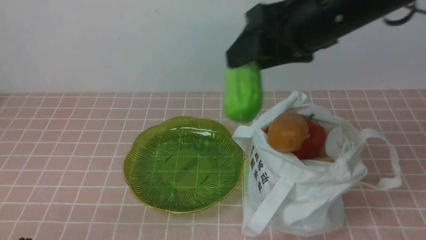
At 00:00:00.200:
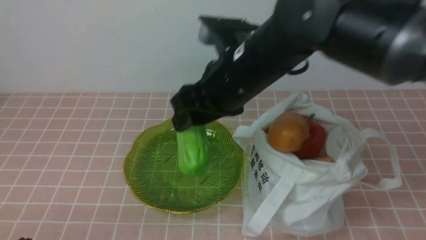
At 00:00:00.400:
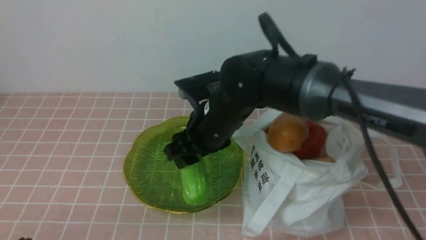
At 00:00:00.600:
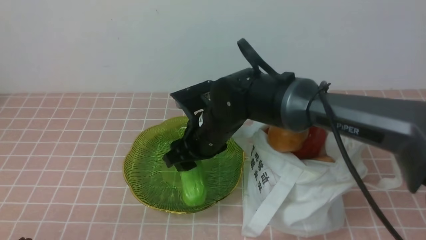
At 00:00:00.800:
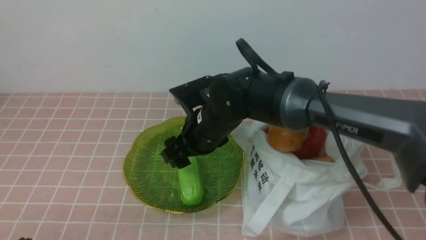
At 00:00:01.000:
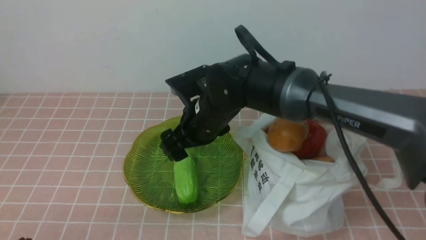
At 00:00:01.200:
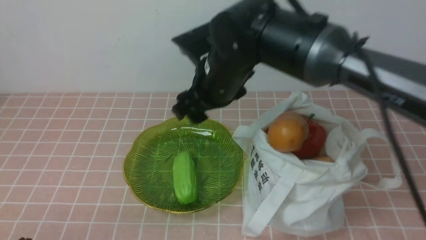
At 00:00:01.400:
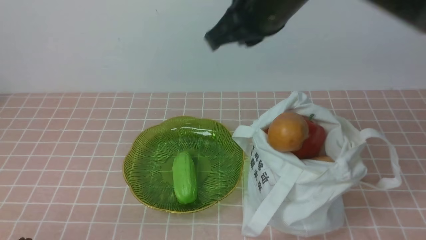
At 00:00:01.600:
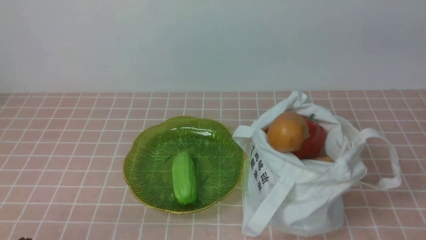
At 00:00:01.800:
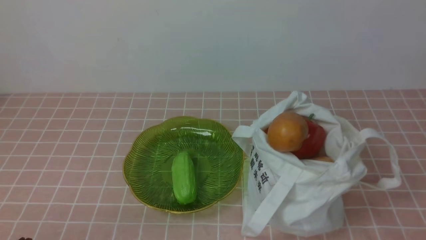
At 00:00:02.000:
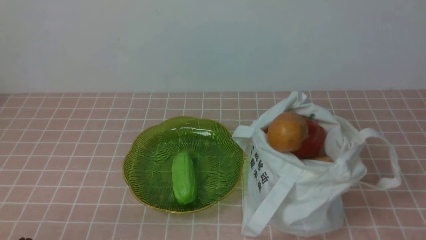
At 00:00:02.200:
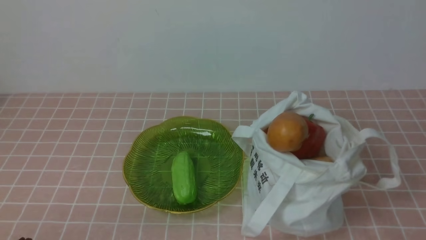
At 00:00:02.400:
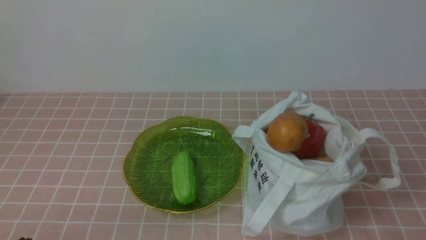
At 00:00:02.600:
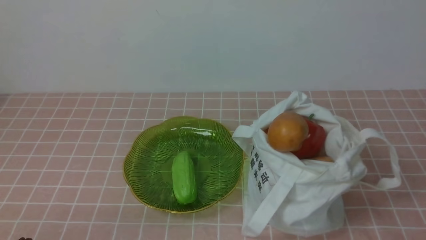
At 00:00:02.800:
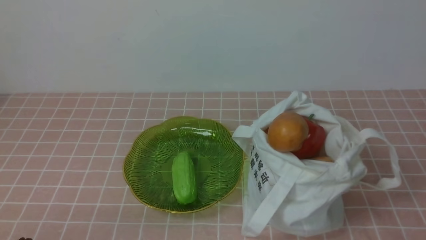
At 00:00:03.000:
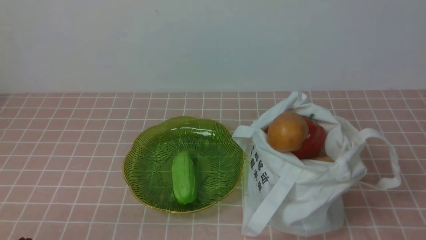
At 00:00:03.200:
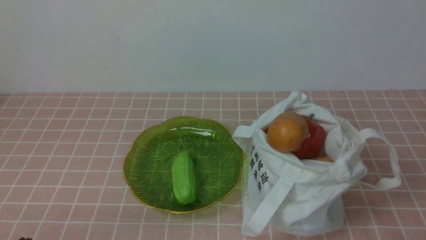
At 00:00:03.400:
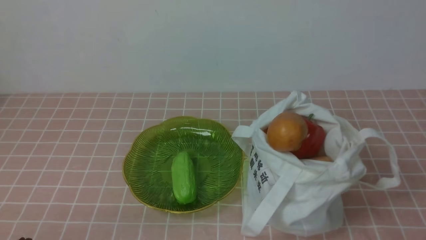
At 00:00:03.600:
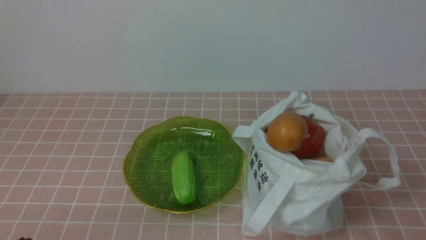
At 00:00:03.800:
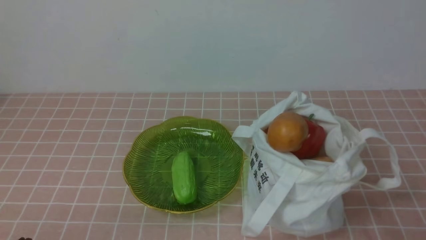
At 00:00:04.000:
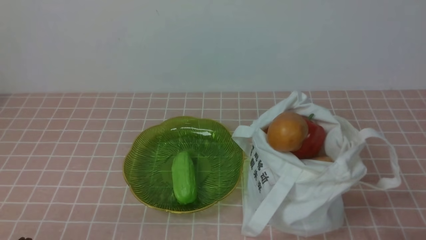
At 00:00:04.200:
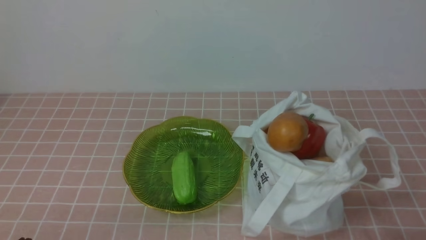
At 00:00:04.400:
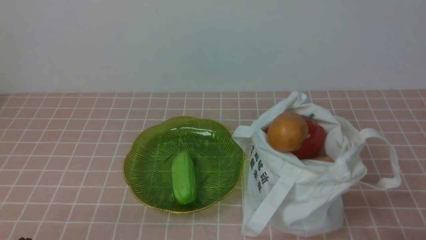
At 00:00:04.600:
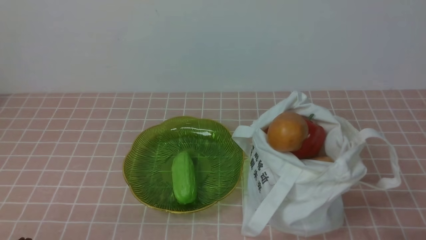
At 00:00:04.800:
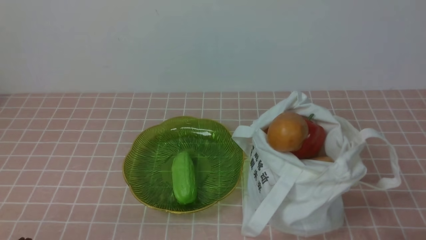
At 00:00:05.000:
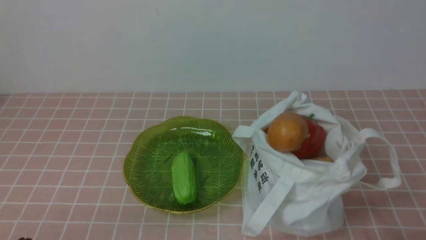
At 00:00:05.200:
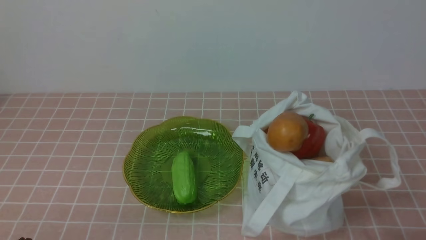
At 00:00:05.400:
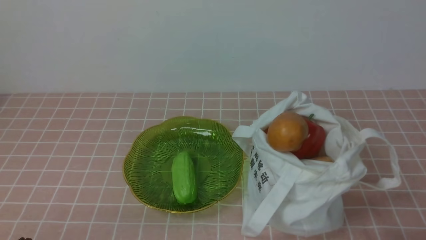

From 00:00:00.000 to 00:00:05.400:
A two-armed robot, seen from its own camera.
Task of the whole recording: take vegetables from bag on pink coffee tablecloth place on plate.
Step, from 00:00:00.000 to 00:00:01.000: Place the bitter melon on the plate with right gripper.
From 00:00:00.000 to 00:00:01.400: The right gripper moves some 15 cm downward and comes back, and closes its fingers.
From 00:00:01.400 to 00:00:02.800: The right gripper moves backward, to the right and downward, about 35 cm.
From 00:00:04.000 to 00:00:05.400: Both grippers stay about where they are.

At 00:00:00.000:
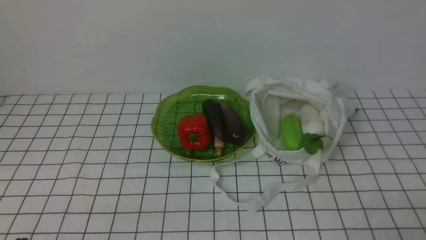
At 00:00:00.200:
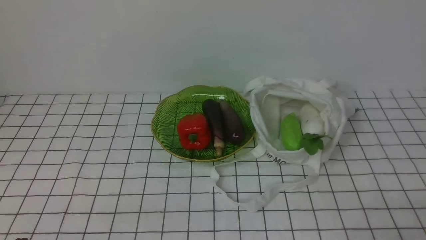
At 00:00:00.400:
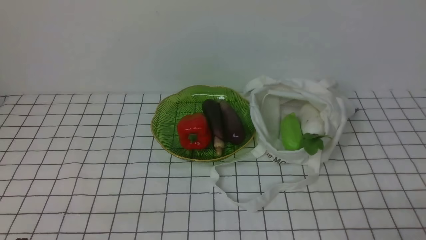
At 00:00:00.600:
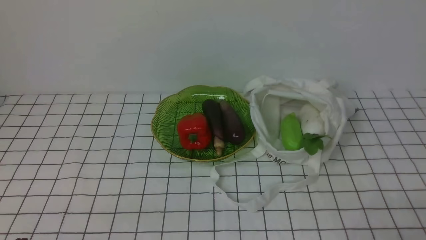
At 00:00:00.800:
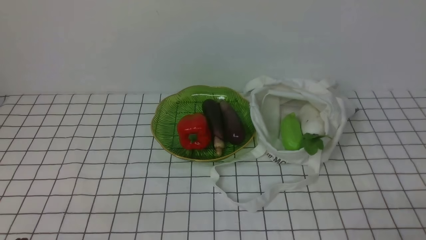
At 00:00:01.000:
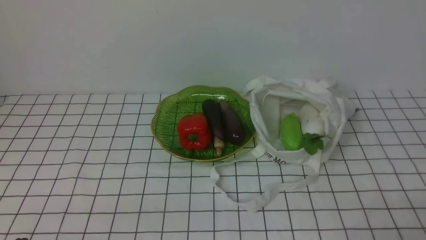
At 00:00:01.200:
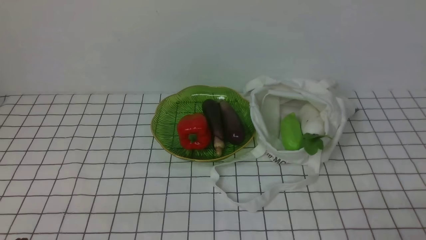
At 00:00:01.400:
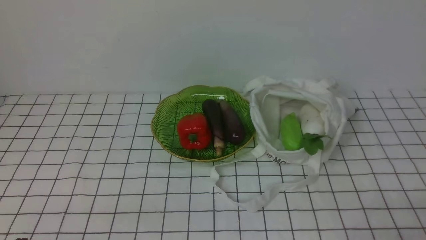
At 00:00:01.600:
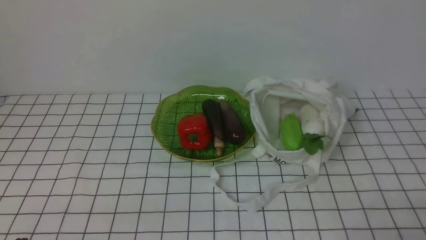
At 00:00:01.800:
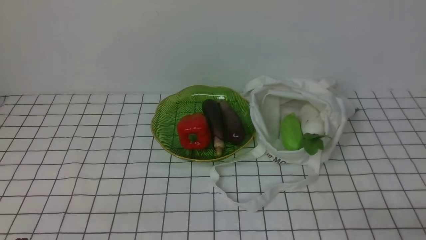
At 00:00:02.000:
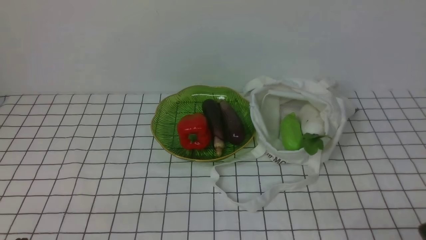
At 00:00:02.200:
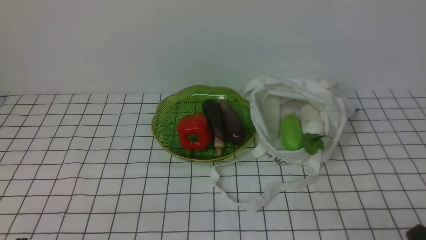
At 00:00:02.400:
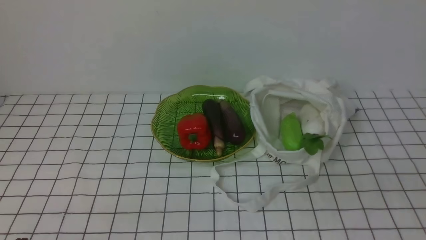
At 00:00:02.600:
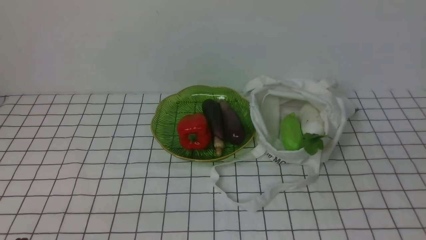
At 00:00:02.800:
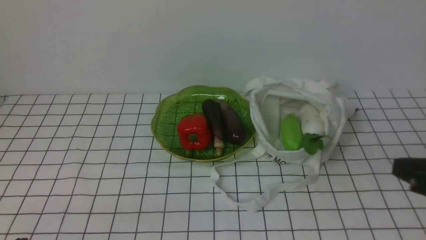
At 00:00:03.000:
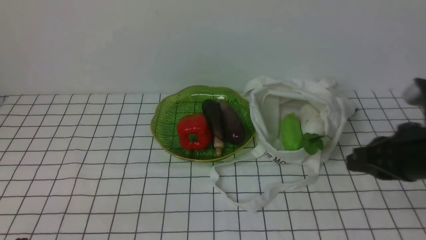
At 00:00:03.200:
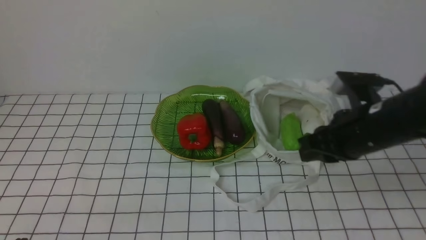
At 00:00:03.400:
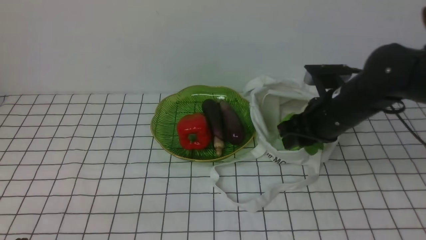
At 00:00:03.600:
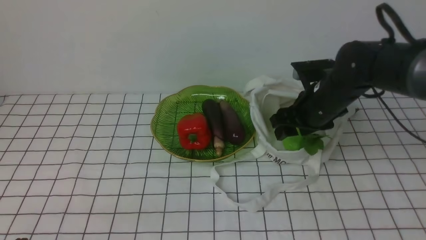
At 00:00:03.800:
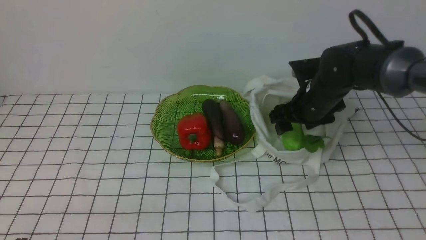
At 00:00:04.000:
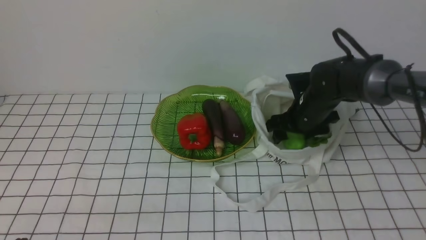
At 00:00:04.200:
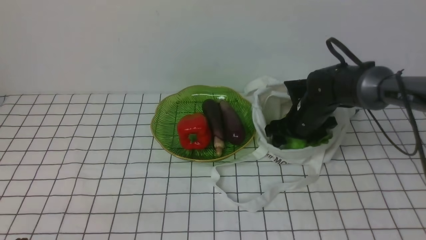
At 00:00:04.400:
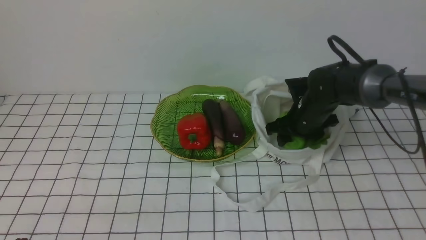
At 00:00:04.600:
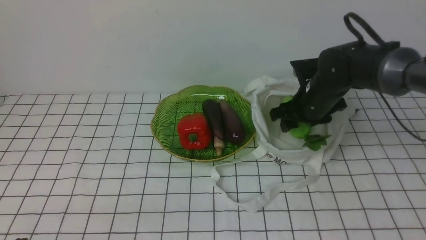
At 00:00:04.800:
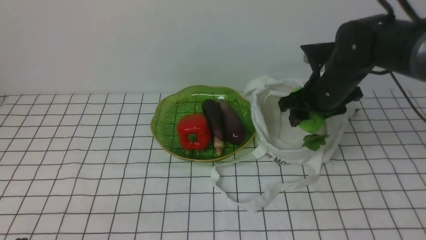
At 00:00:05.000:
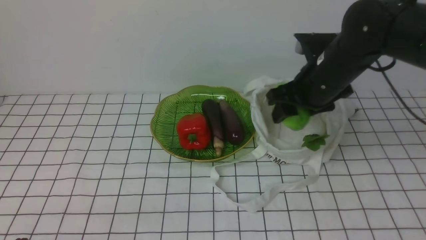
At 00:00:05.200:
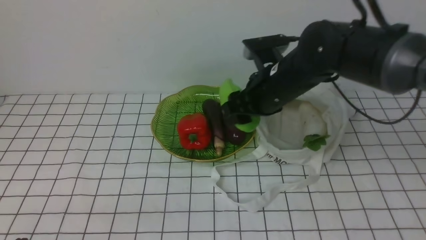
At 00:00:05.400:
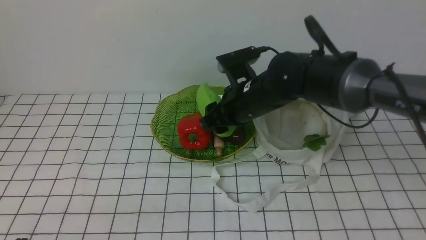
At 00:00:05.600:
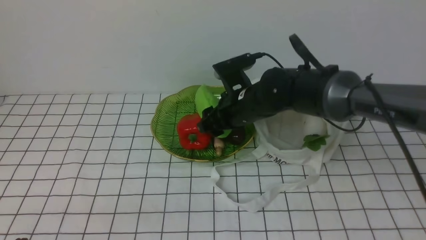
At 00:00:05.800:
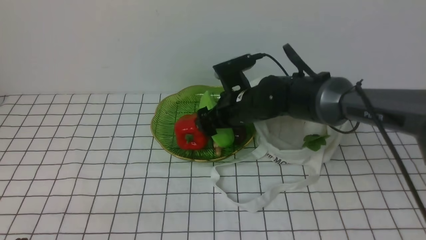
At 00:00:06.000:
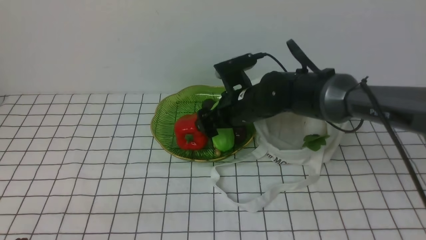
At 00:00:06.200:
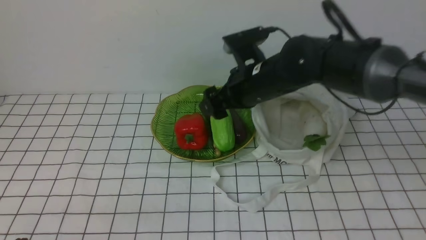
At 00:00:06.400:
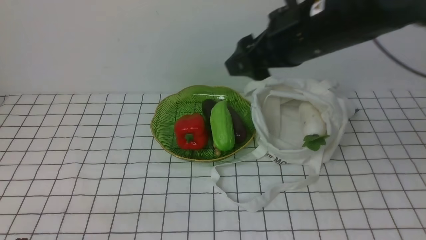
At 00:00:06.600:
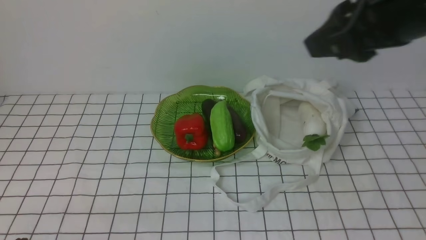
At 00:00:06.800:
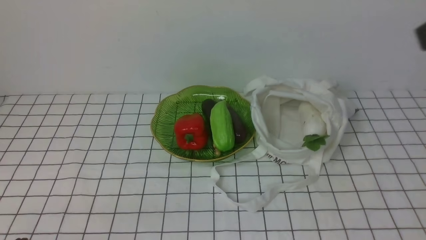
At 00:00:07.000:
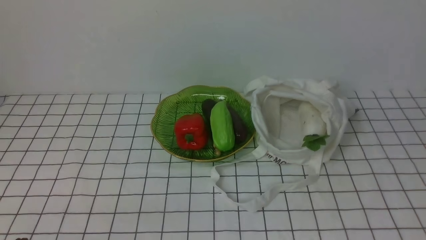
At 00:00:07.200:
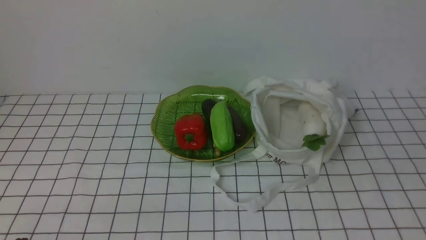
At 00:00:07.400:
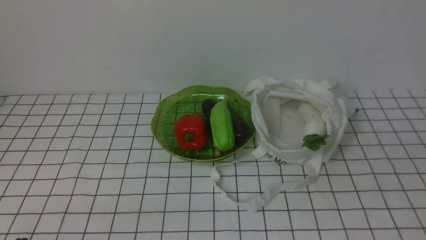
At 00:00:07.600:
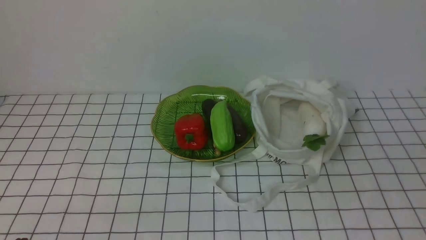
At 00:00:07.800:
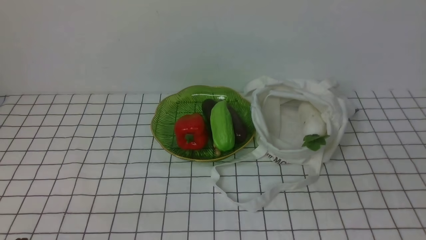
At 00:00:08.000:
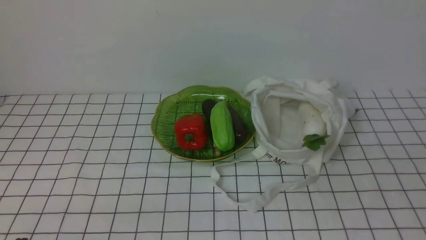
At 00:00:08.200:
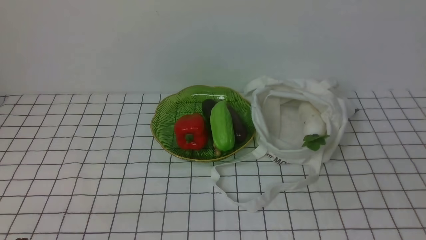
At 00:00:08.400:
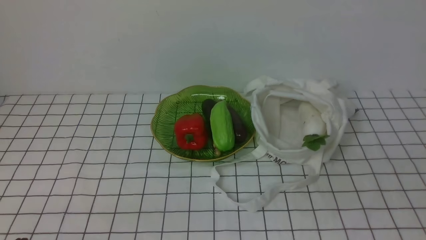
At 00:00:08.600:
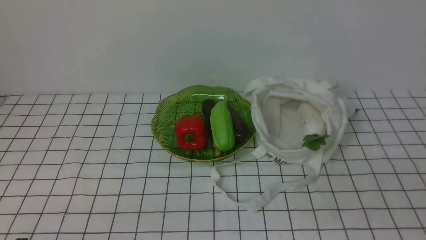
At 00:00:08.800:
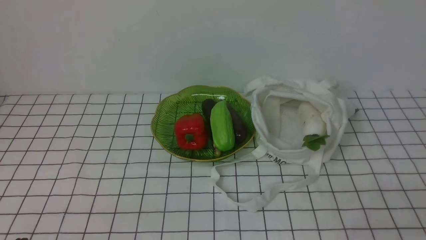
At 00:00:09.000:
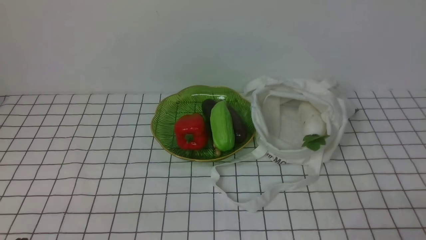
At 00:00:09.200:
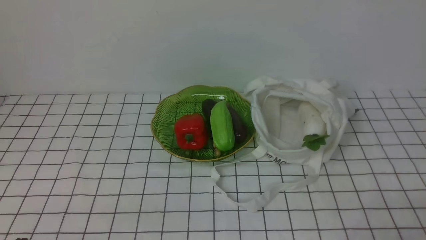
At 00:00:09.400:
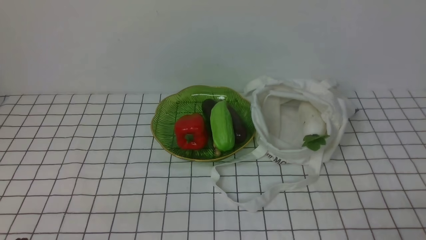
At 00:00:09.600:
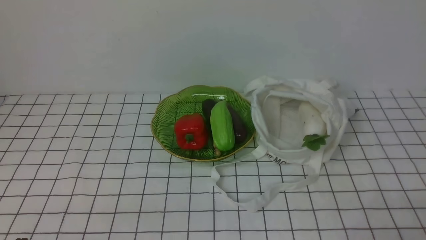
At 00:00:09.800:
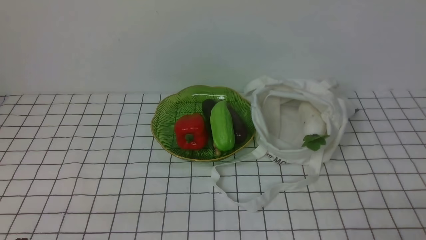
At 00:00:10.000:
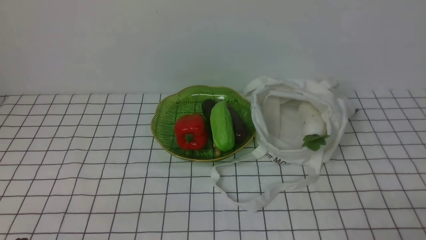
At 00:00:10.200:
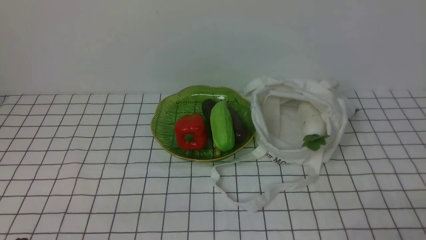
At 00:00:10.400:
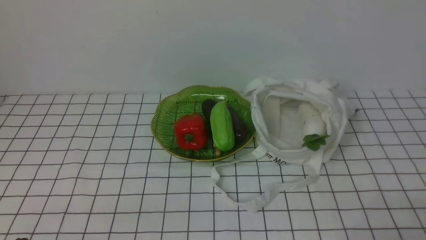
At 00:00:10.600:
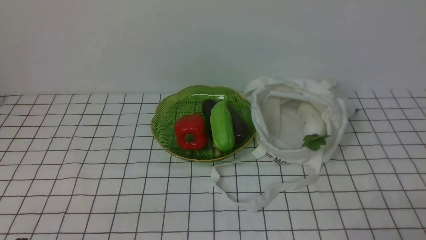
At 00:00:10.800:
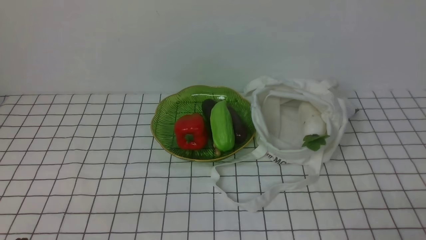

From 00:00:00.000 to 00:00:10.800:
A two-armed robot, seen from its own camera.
Task of the whole recording: take vegetables from bag on white checkered tablecloth place on plate.
Step, from 00:00:00.000 to 00:00:04.200: Grasp the bitter melon with right gripper.
Step, from 00:00:04.400 to 00:00:06.200: Place the bitter melon on the plate with right gripper.
From 00:00:01.600 to 00:00:03.000: The right gripper travels forward, upward and to the left by some 20 cm.
From 00:00:03.000 to 00:00:04.600: The right gripper moves forward and downward, approximately 20 cm, and opens.
From 00:00:04.600 to 00:00:06.200: The right gripper goes roughly 15 cm to the left and upward.
From 00:00:06.200 to 00:00:07.800: The right gripper travels backward and to the right by about 35 cm, and closes its fingers.
From 00:00:09.200 to 00:00:10.800: Both grippers stay put.
